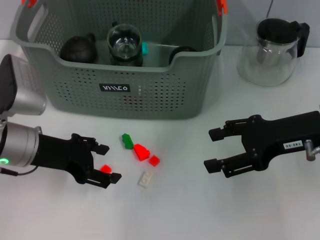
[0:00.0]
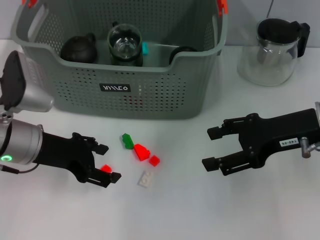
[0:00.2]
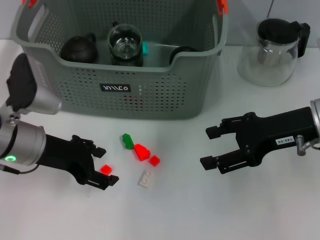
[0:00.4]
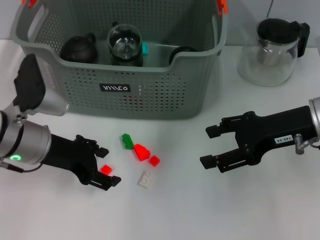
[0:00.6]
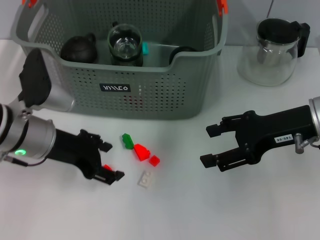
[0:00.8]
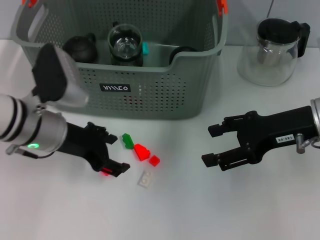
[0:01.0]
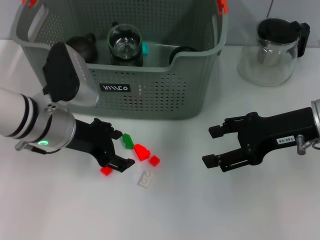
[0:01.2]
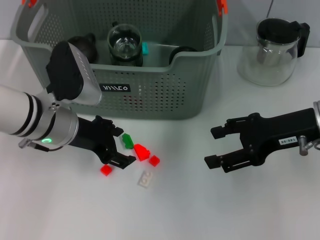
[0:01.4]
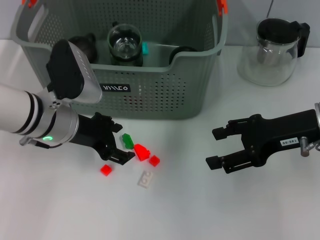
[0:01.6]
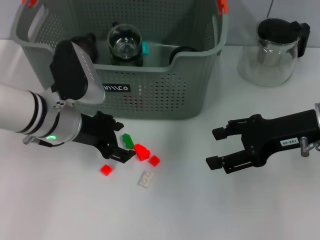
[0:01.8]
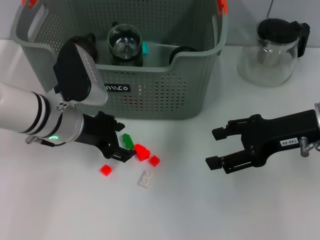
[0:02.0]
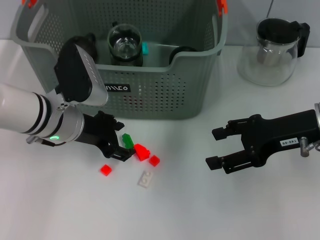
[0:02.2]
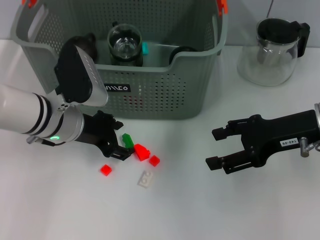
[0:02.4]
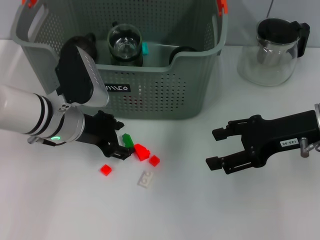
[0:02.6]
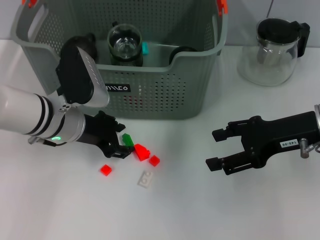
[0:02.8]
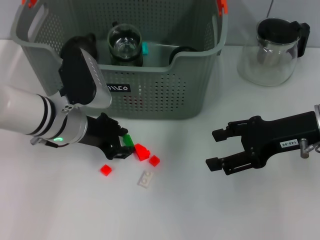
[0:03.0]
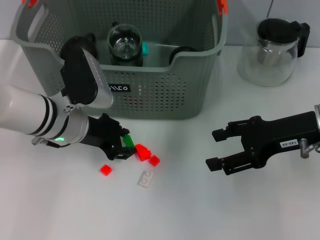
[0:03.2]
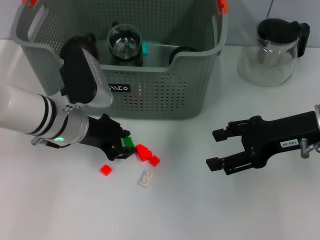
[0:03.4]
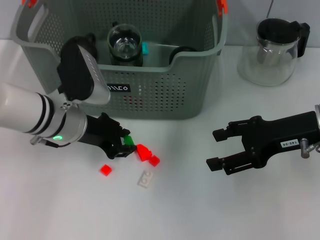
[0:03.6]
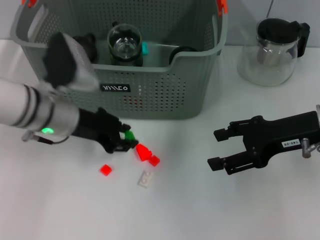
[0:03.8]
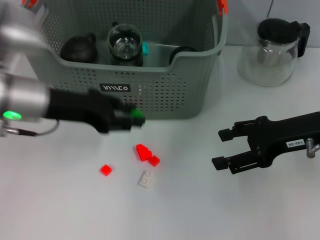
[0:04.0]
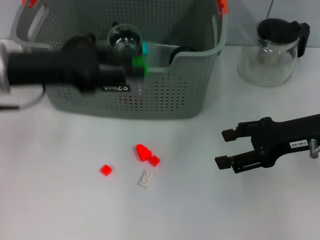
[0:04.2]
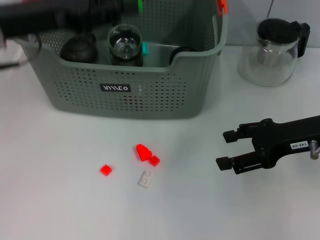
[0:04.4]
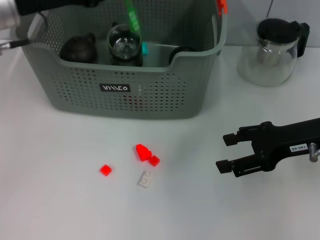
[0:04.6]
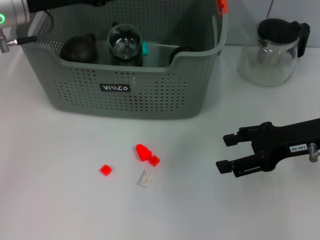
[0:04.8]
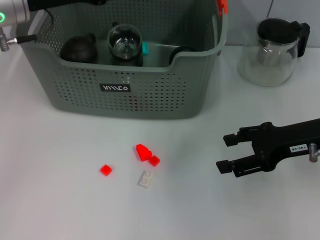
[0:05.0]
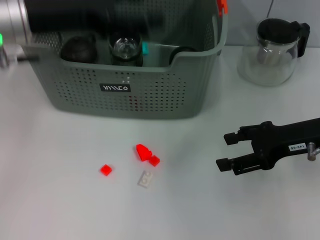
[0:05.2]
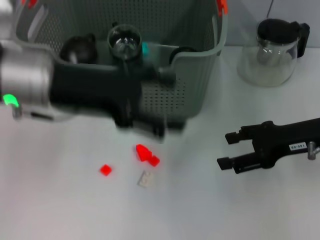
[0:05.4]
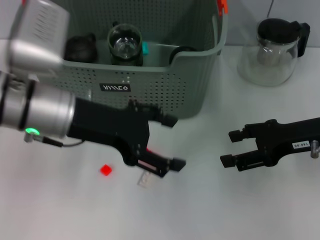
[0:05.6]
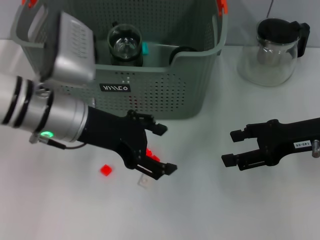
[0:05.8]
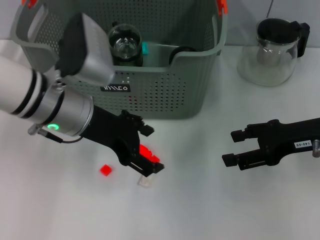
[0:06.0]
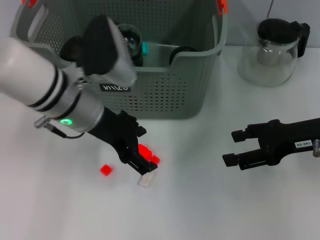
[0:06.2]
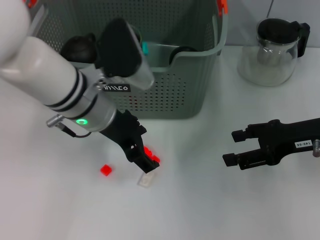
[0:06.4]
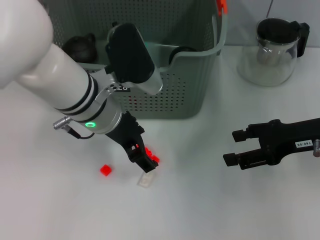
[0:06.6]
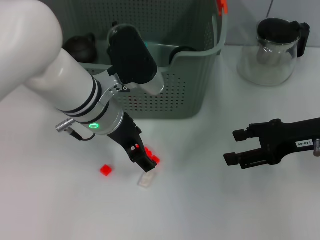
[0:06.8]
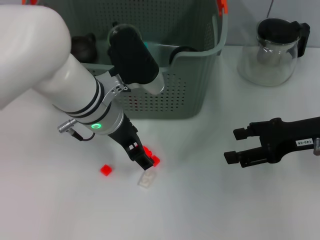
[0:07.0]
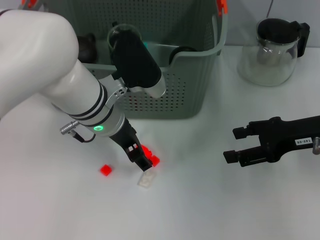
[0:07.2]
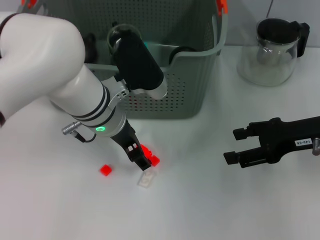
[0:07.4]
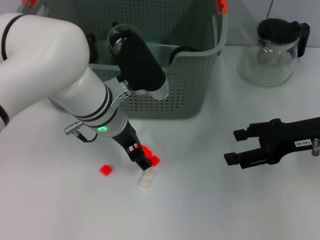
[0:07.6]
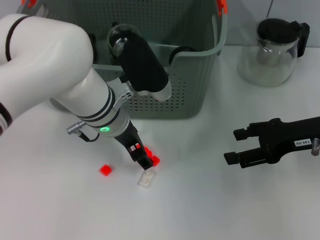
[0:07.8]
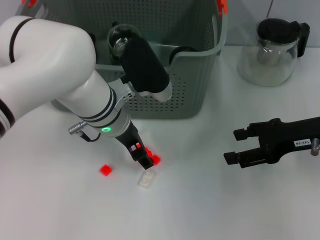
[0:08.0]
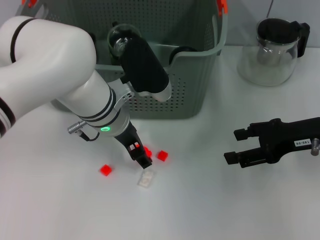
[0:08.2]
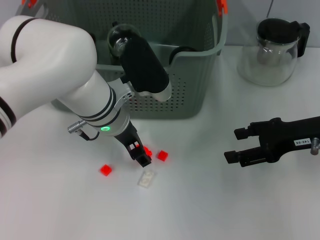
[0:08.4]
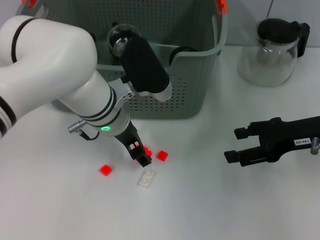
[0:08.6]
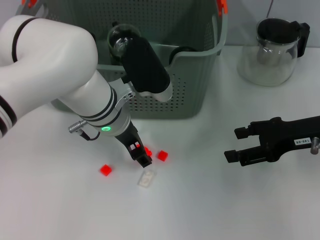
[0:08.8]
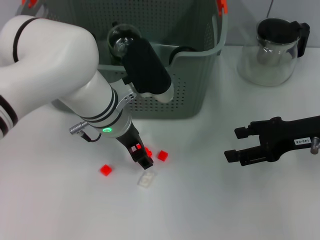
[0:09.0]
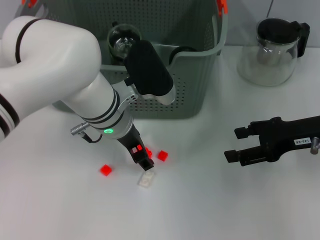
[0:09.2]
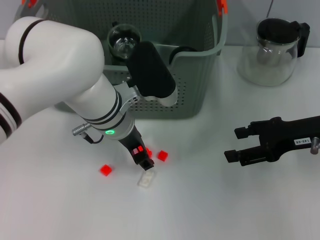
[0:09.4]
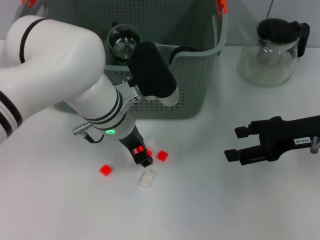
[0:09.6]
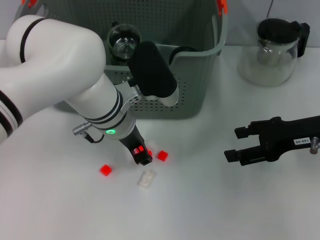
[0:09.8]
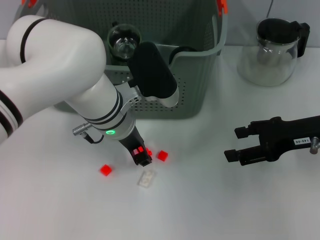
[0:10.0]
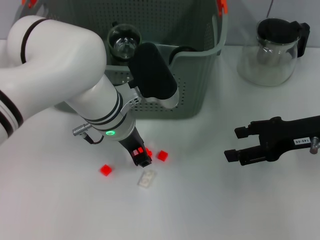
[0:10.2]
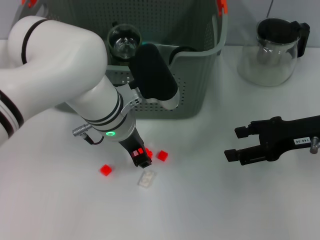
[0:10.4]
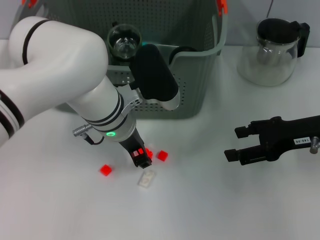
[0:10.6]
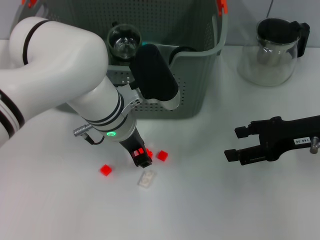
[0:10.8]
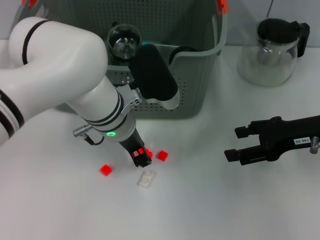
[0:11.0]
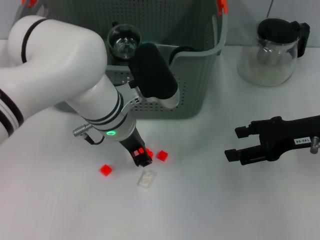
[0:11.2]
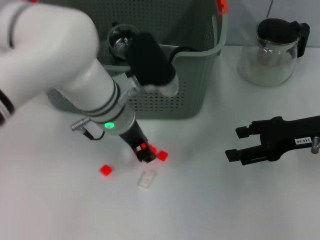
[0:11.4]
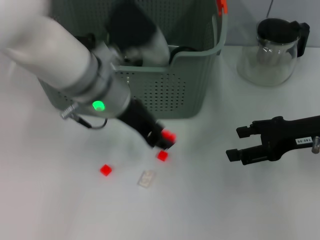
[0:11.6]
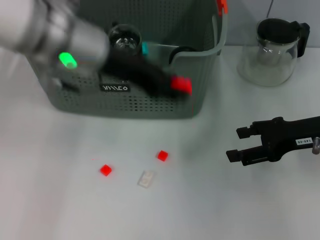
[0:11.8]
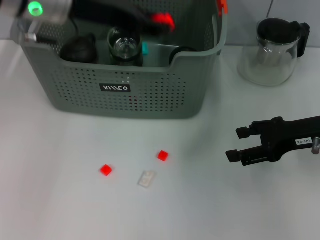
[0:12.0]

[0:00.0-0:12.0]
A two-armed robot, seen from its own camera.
Task of the whole recording: pick up the teacup on the table and place it into the storage bin, pick up the block on the table and place it into the storage bin.
Step, 0.0 to 3.2 s: Grasp the green block with left gripper.
Step, 3.4 to 4.6 s: Place the green block in the storage box with left gripper.
Step, 5.0 to 8.2 s: Grasp the orange block with left gripper.
0.0 to 1.6 s: The left gripper moves to the right, approximately 5 cm.
1.6 to 3.0 s: The grippers make only small movements.
3.0 to 4.4 s: The left gripper heads upward and to the left, covering roughly 15 cm.
4.4 to 6.0 s: The left gripper travels to the right and downward by about 10 cm, and opens up.
6.0 to 7.6 s: The left gripper travels to the right by roughly 5 cm.
7.6 to 9.0 s: Both grippers stay put.
9.0 to 10.4 s: The left gripper closes.
10.4 to 12.0 s: The left gripper heads upward and to the left, covering about 20 cm.

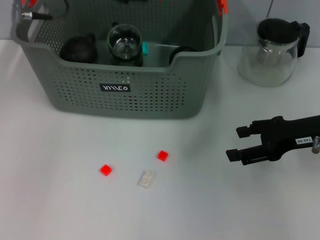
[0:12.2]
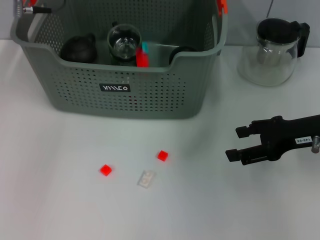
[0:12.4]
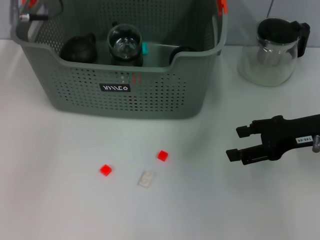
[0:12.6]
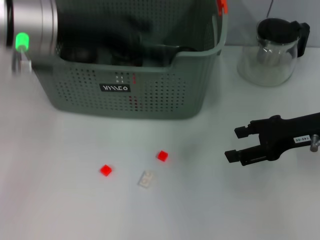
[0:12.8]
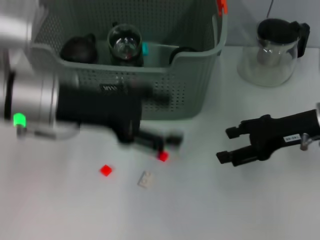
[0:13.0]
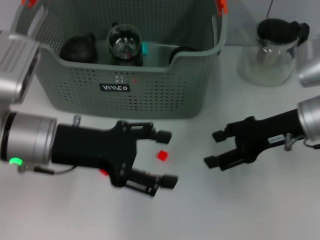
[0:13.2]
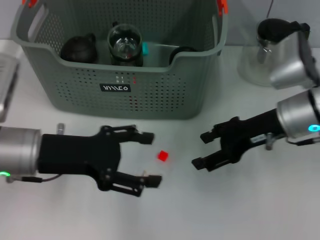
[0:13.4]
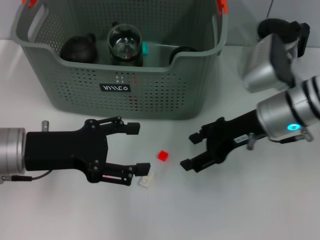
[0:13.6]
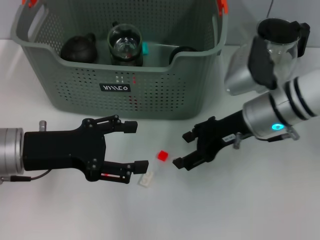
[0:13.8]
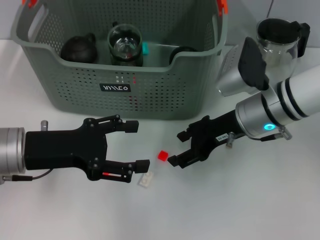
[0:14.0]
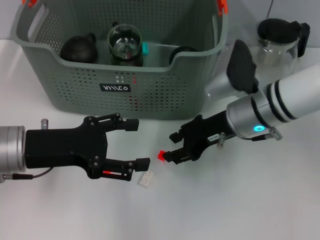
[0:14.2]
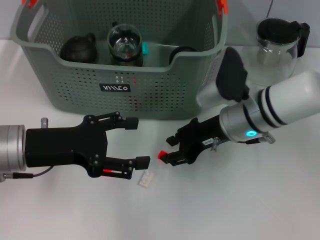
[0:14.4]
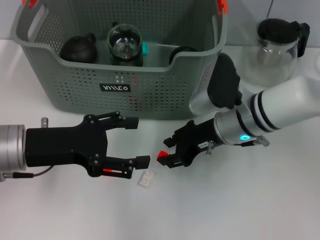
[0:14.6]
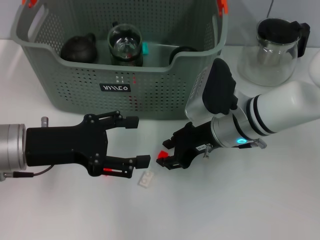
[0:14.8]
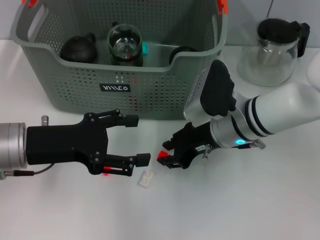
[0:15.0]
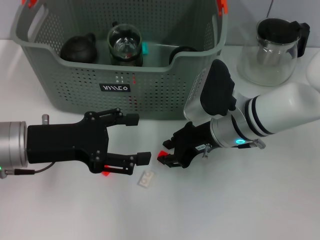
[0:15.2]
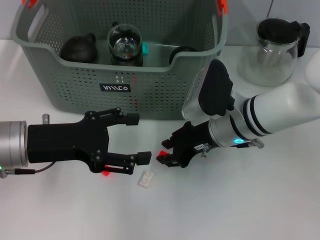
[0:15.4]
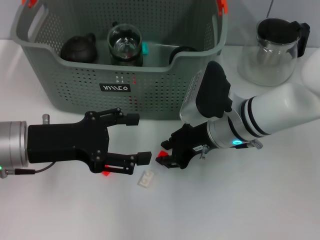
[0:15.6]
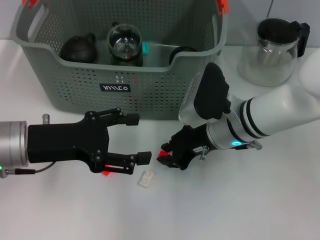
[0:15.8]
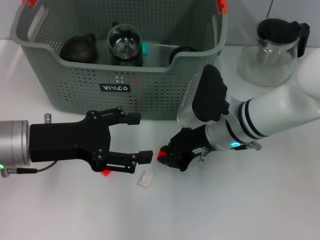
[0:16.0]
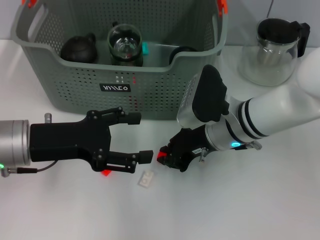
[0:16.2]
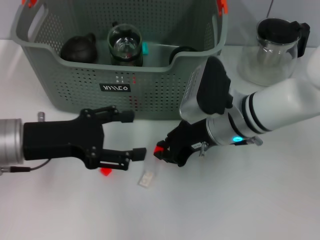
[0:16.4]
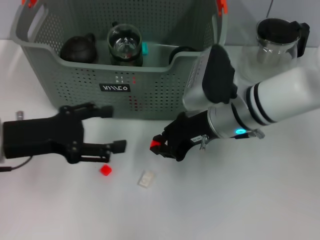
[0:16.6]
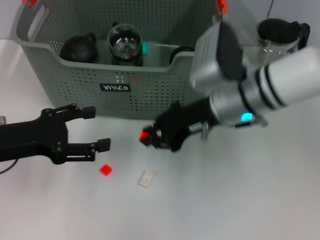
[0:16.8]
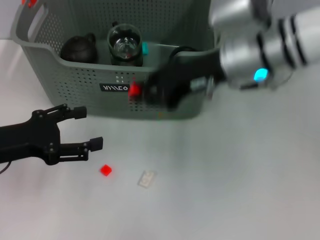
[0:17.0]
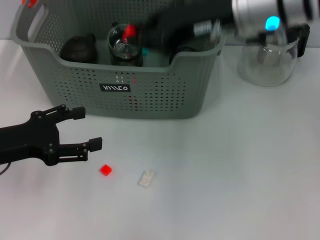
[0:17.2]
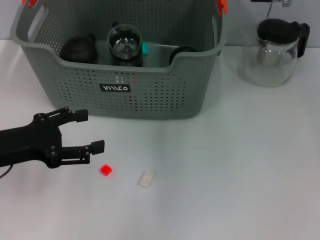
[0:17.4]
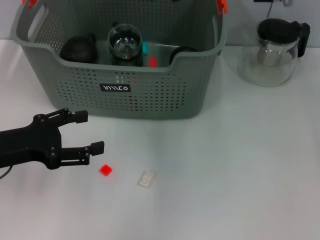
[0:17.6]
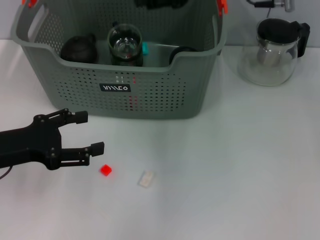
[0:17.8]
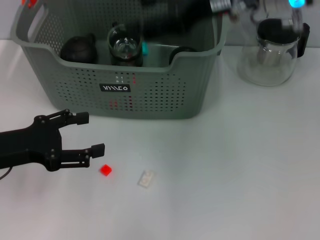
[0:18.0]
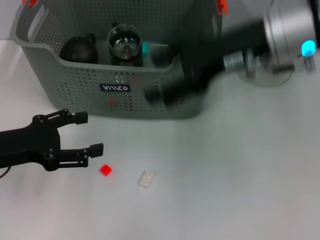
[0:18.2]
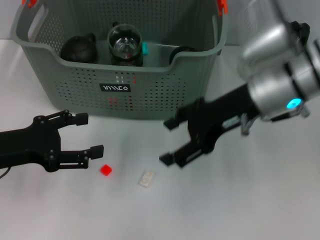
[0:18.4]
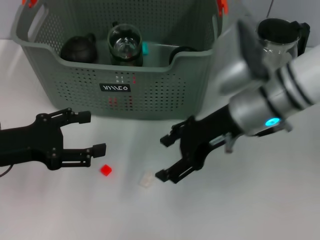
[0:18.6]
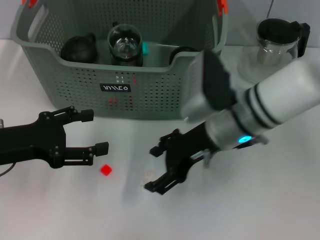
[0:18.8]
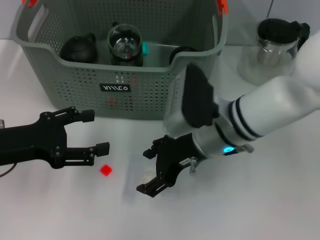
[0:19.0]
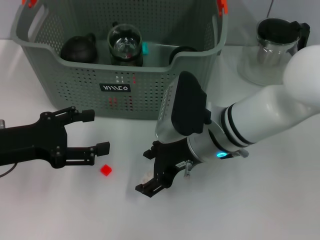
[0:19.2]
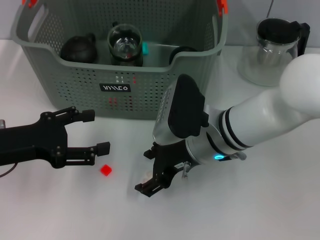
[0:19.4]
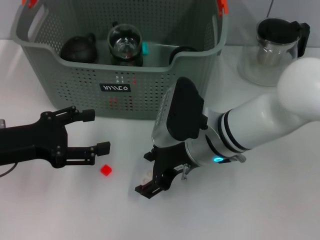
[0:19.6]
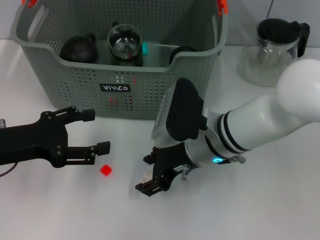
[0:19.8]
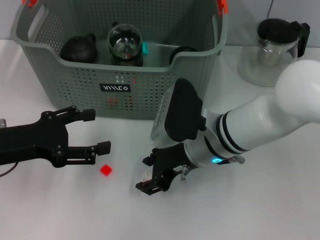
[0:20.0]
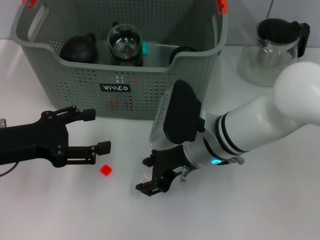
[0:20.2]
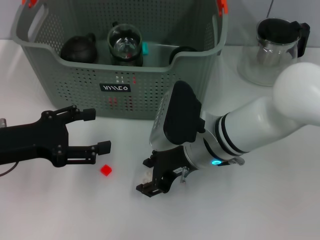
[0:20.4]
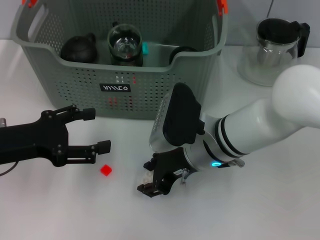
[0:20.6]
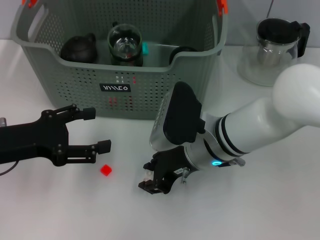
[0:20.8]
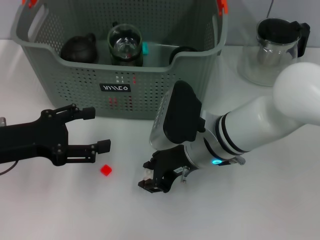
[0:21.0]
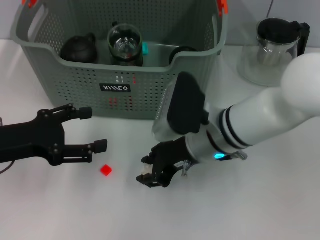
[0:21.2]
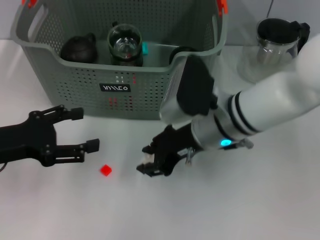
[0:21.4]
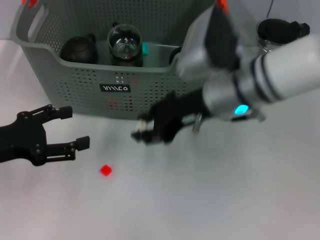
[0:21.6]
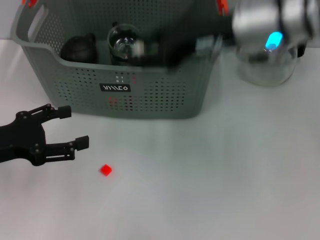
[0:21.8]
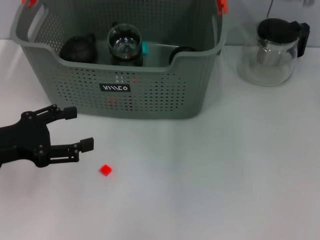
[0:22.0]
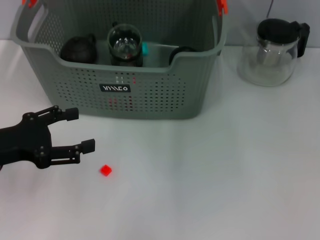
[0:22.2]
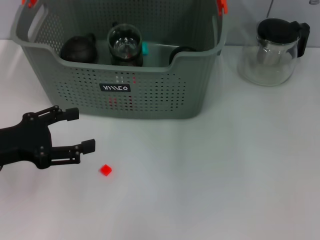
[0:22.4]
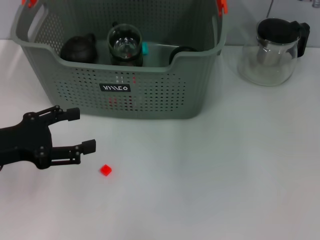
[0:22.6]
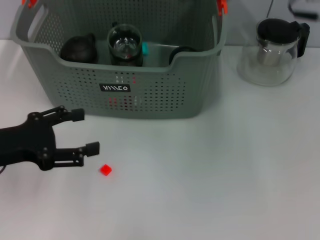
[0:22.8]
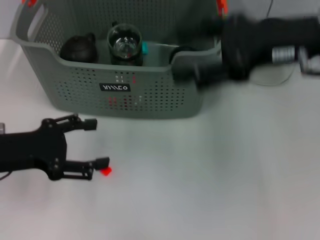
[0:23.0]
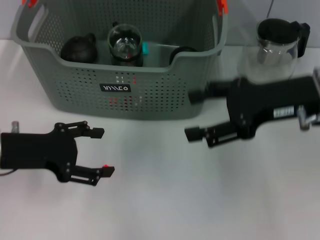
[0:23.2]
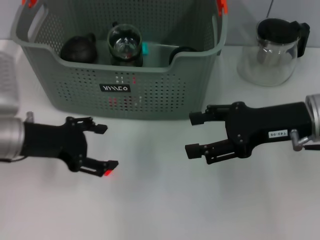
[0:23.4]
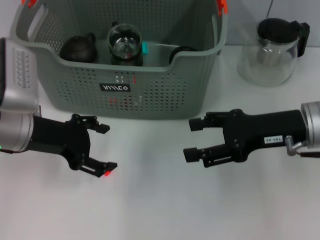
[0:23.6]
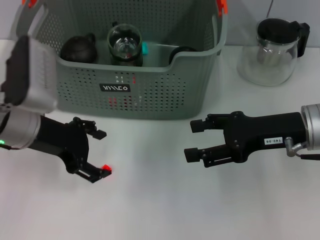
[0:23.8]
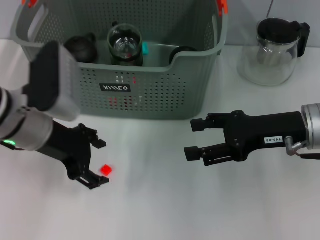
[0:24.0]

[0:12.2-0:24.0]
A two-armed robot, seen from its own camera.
Task of the whole recording: pick up the teacup on the table and place it into the storage bin, pick up the block on the table and place it into the storage bin.
Step, 12.6 to 16.0 s: Grasp the orange block with right gripper.
Step, 16.2 to 17.6 s: Place the orange block in the storage box with right gripper.
Step, 17.8 to 20.8 s: Grasp the white block with right gripper.
Step, 21.2 to 22.4 s: Place the white block in the storage box with right gripper.
12.2 to 13.6 s: The left gripper travels downward and backward by roughly 20 cm, and opens. Meanwhile the right gripper shifts some 10 cm to the left.
13.6 to 15.2 s: The right gripper is displaced to the left by some 5 cm, and closes up.
15.2 to 16.6 s: The grippers stay close to where they were, moving slightly.
16.6 to 18.2 s: The right gripper travels upward by roughly 10 cm, and opens its fingers.
18.2 to 19.6 s: The right gripper shifts roughly 15 cm downward and to the left.
19.6 to 21.0 s: The right gripper closes up.
21.0 to 22.6 s: The right gripper travels upward, to the right and forward by about 25 cm.
22.6 to 24.0 s: The left gripper shifts roughly 10 cm to the right and forward; the right gripper is displaced downward and backward by approximately 20 cm.
